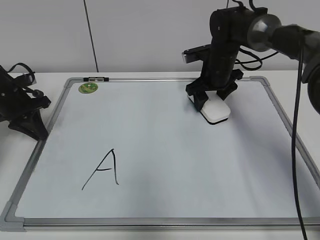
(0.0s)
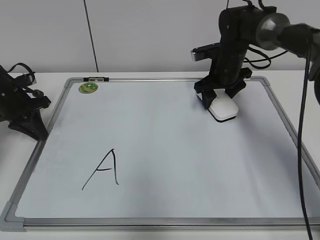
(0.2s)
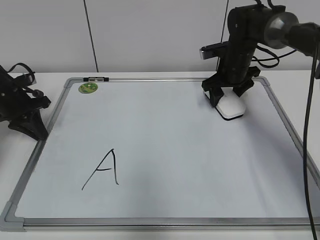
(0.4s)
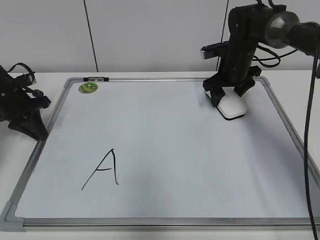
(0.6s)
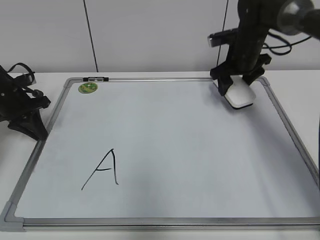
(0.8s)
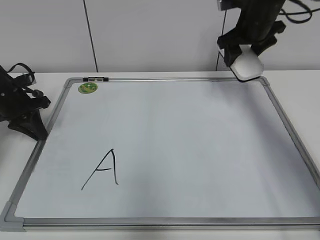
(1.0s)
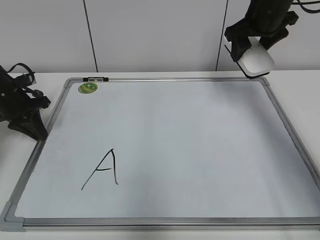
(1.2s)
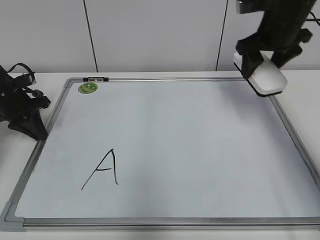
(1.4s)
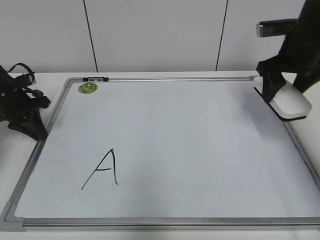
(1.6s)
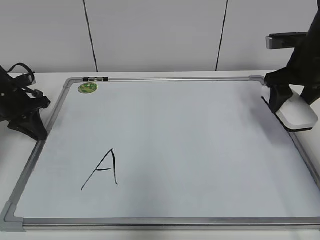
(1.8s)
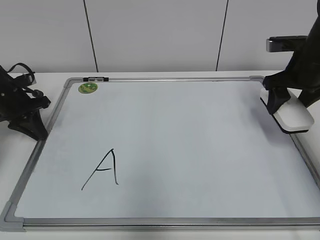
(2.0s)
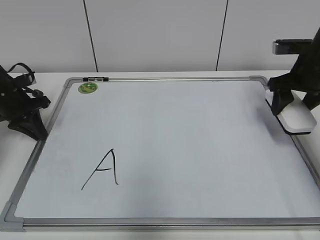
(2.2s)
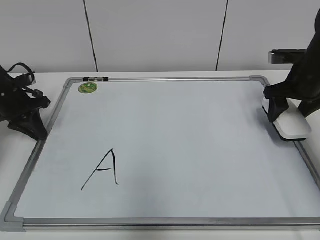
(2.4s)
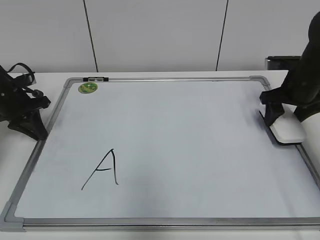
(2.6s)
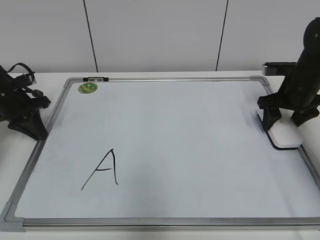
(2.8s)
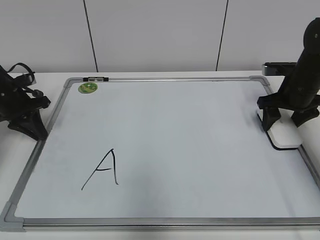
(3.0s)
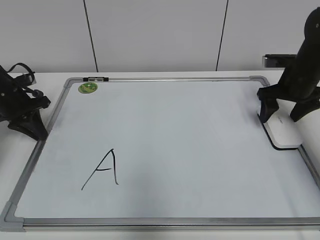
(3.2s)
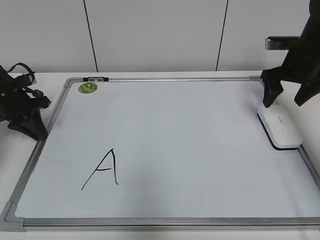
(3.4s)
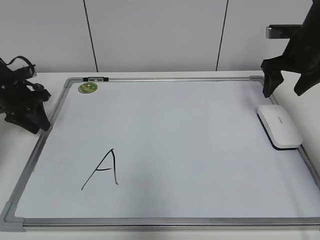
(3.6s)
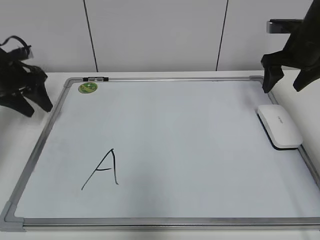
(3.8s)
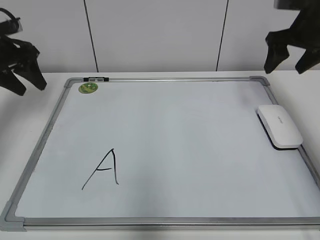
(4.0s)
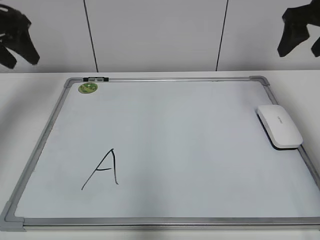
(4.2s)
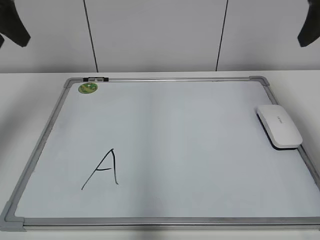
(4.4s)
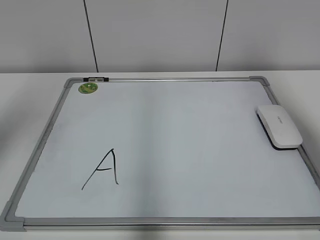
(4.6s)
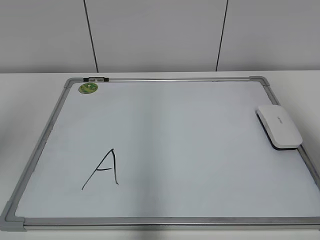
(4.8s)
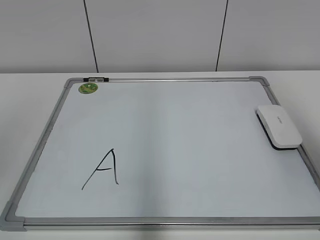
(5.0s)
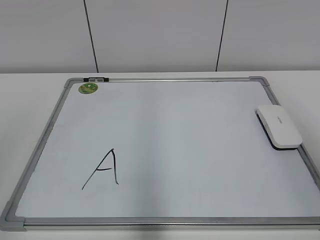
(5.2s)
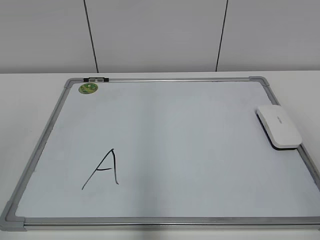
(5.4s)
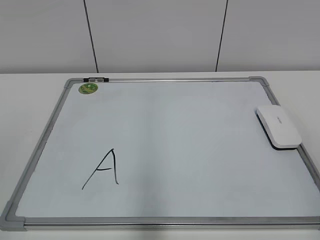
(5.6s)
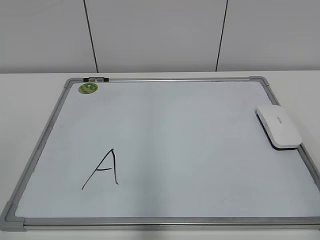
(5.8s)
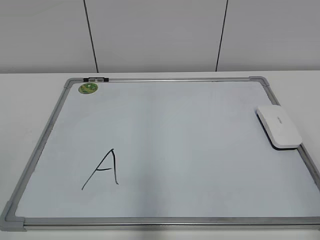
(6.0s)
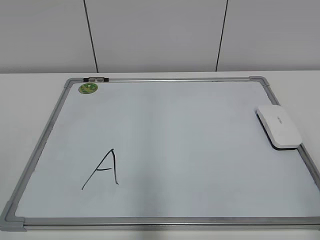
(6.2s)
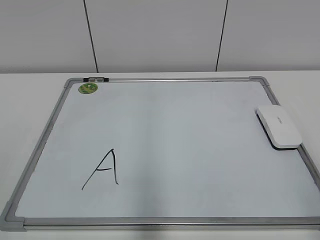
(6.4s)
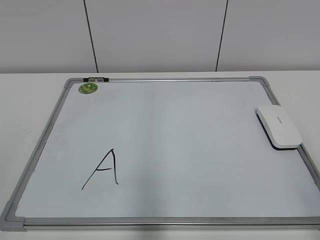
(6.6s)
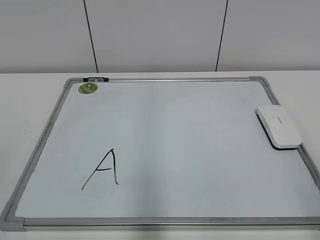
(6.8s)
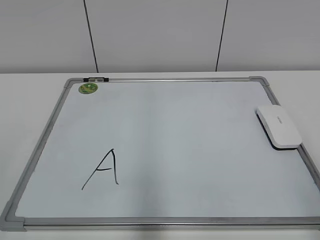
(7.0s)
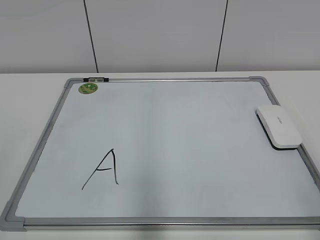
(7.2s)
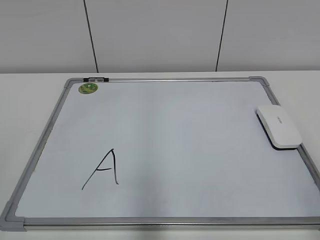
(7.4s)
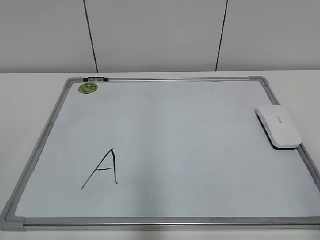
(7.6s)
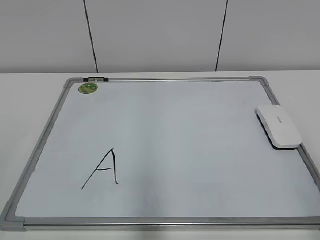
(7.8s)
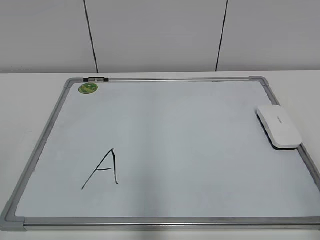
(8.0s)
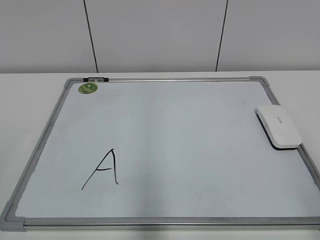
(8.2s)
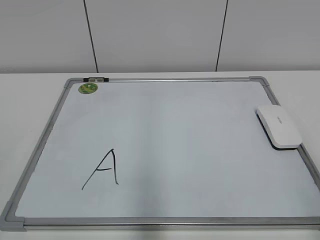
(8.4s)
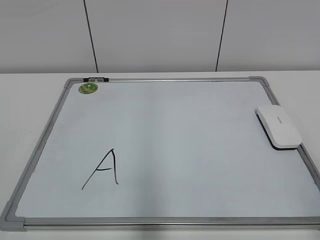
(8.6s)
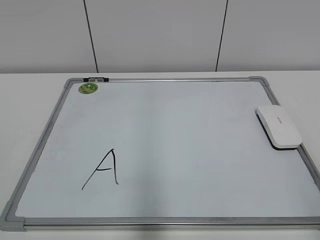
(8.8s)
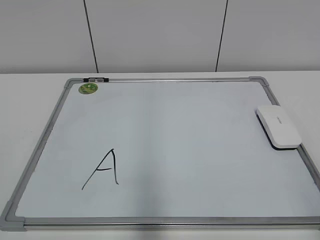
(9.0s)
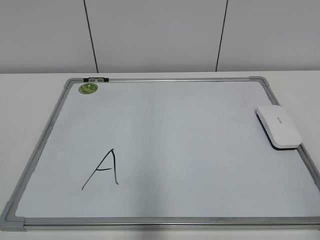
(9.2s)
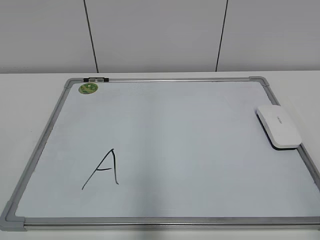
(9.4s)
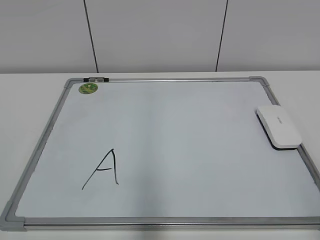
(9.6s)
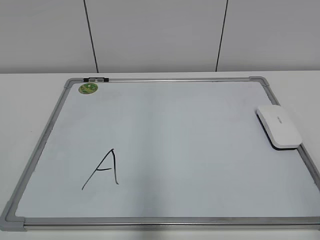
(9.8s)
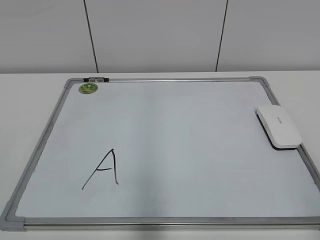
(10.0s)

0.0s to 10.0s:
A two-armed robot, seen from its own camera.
Task of the whole recording: pick up the eraser on the blackboard and erase the letter "a".
Step, 0.0s to 3.0s: Put down the eraser with your right hand.
0.0s to 1.4s: The right gripper travels upward, to the right and backward by about 15 cm.
1.4s to 2.8s: The right gripper goes approximately 15 cm downward and to the right.
2.8s to 4.2s: The two grippers go roughly 15 cm upward. The right gripper opens its fingers, while the left gripper opens its fingers.
4.2s to 5.8s: Both grippers move backward, some 40 cm.
